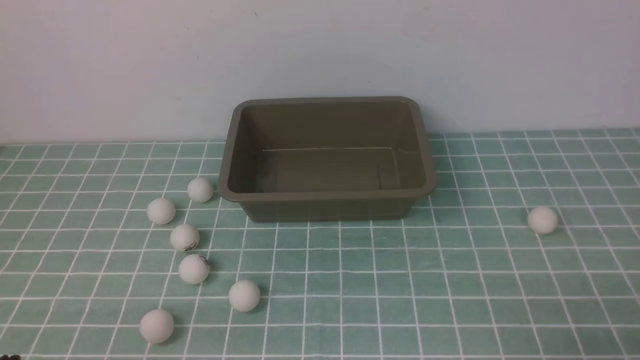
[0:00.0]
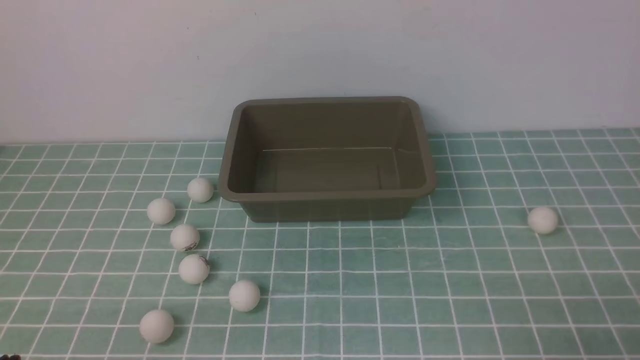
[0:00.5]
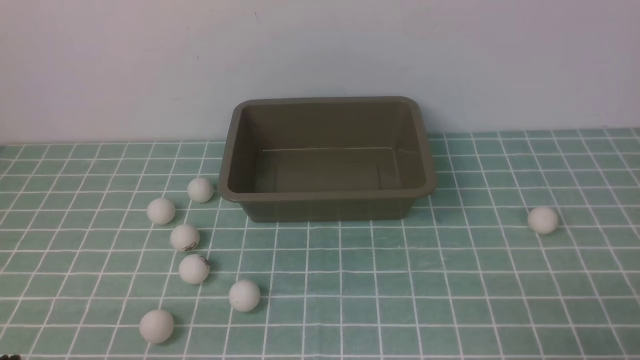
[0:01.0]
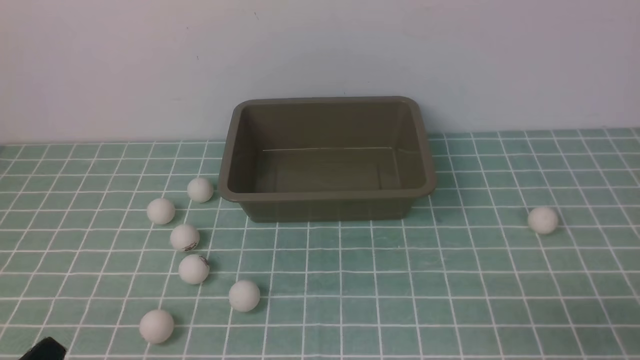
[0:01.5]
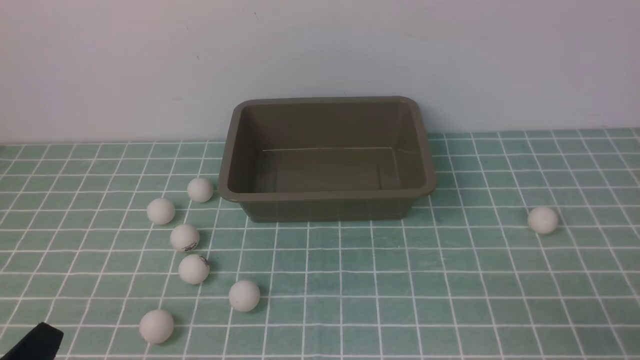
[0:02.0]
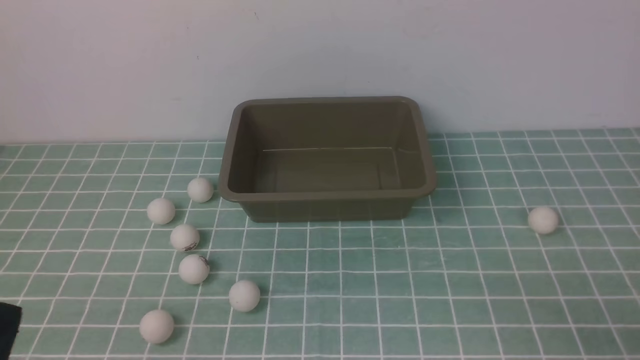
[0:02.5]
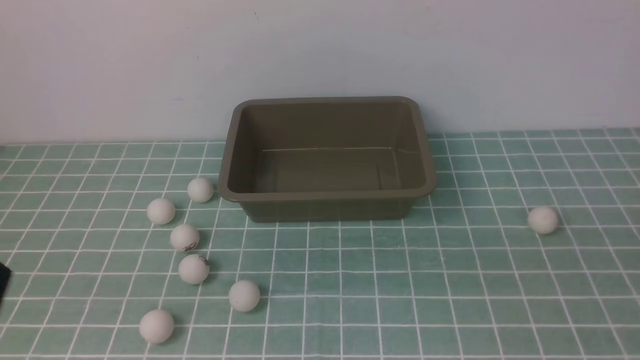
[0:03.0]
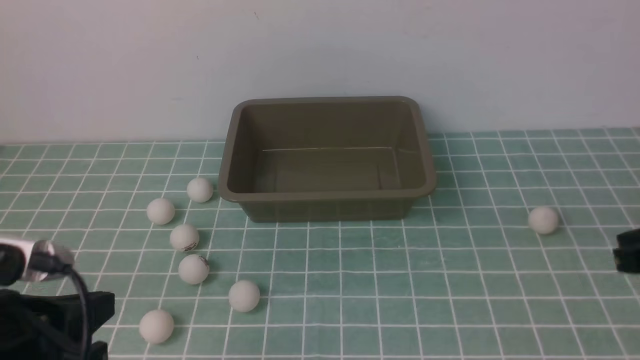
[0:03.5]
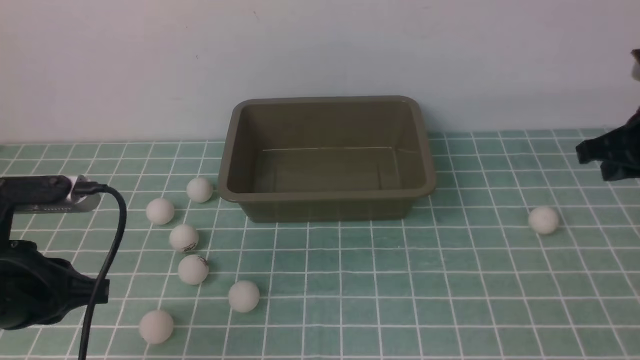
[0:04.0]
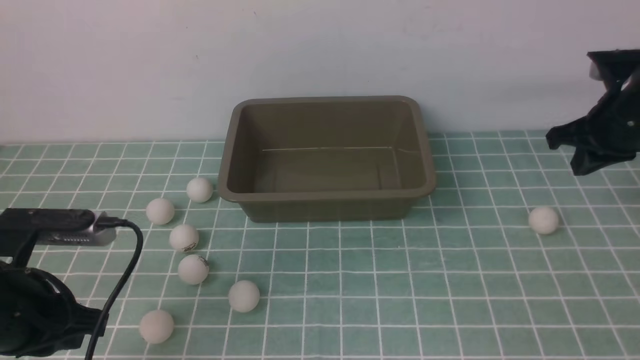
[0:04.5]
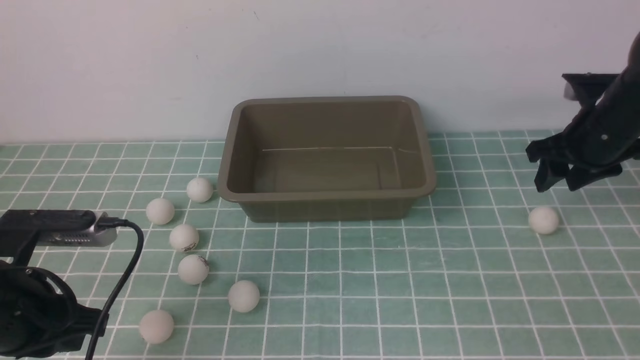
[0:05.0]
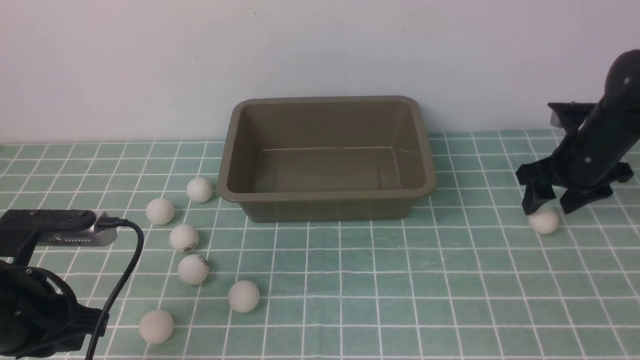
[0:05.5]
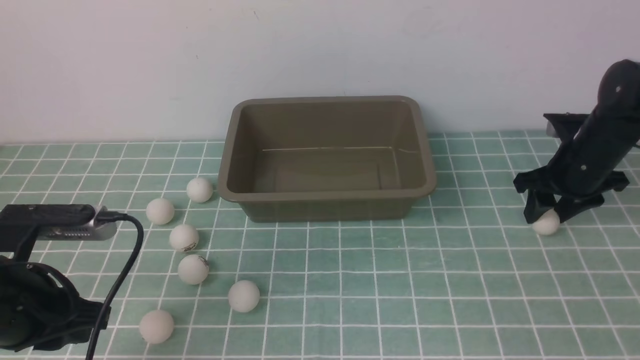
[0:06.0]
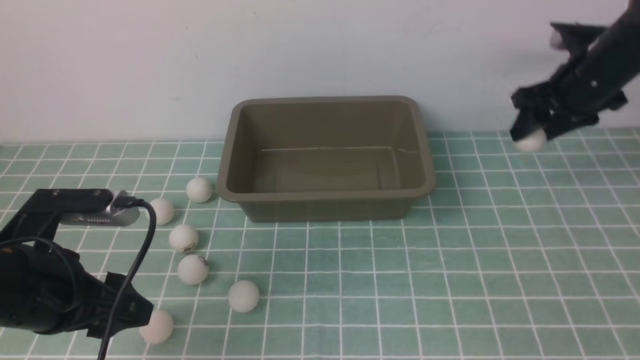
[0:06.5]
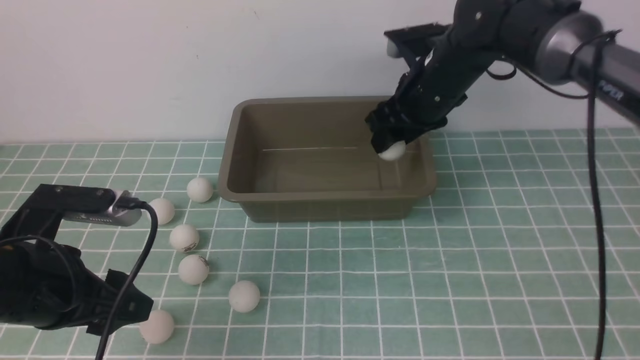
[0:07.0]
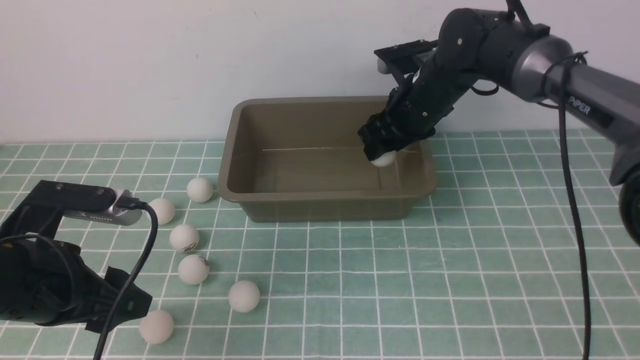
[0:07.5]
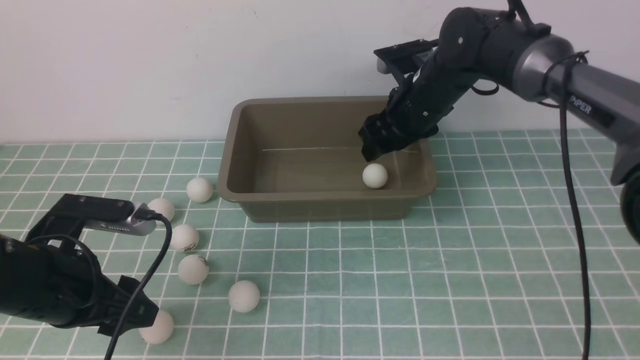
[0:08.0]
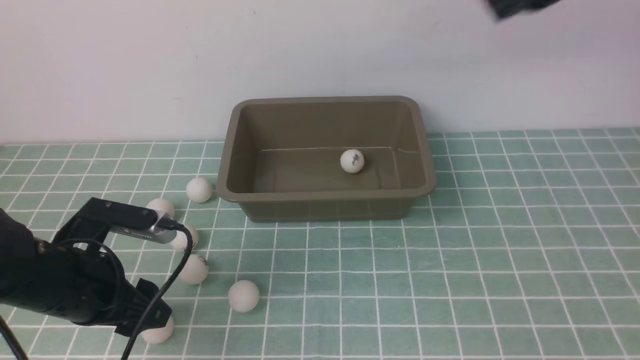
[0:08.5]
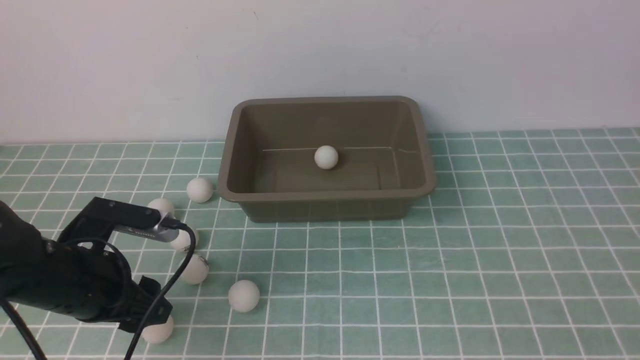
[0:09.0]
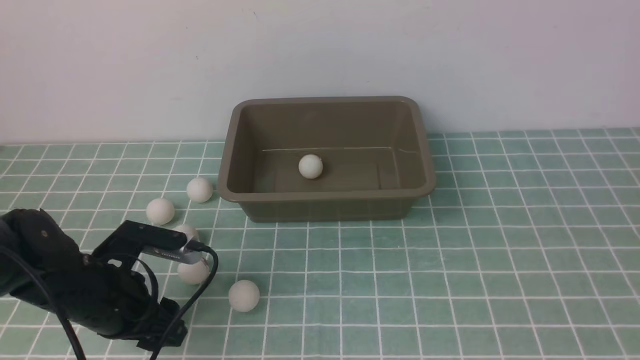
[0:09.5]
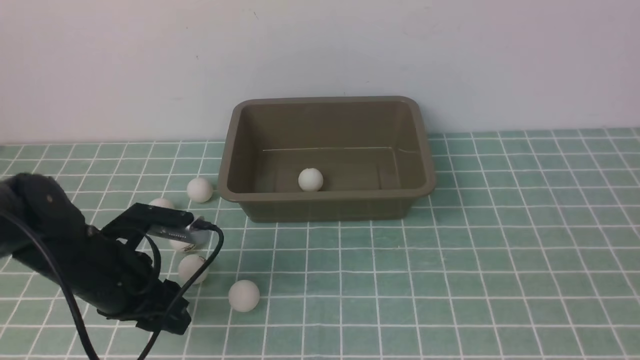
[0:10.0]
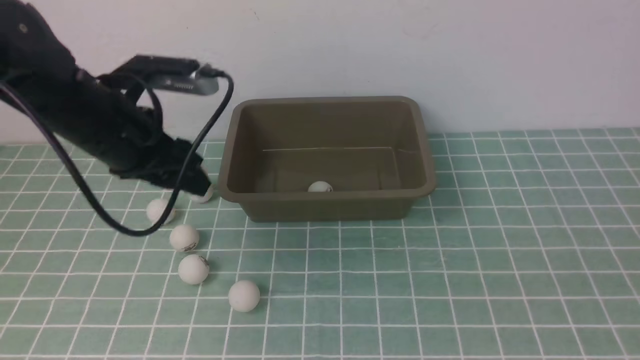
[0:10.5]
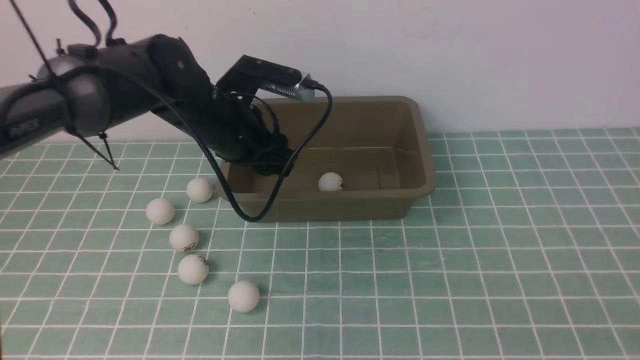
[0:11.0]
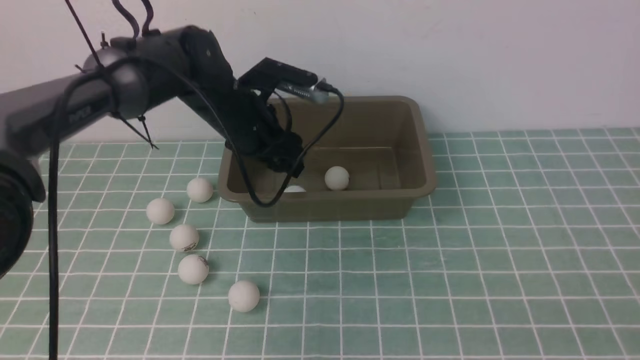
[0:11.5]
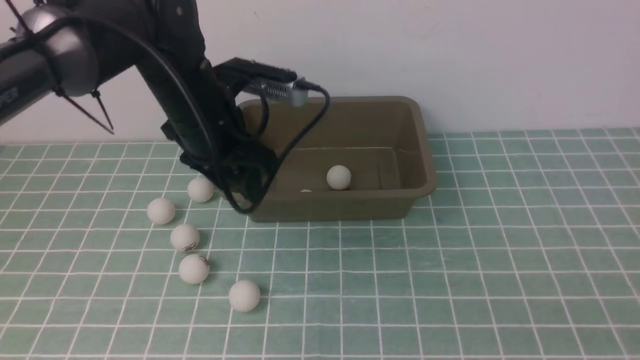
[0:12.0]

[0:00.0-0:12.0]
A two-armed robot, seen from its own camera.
Step, 0:00.0 to 0:06.0: use the right arm to clamp the table tennis ball closest to it.
Step, 0:06.5 to 0:08.0: use the right arm to put the table tennis ball into the box.
Step, 0:08.5 to 0:10.0: use the left arm to clamp the table tennis ball closest to it.
Step, 0:10.5 to 0:11.5: use the left arm to put the table tennis ball into the box.
0:02.0 to 0:04.0: The left gripper goes approximately 15 cm forward and upward. The right gripper shifts roughly 30 cm forward.
0:04.0 to 0:06.0: The right gripper moves downward and forward, roughly 15 cm, and opens. Meanwhile the left gripper opens up.
0:06.0 to 0:08.0: The left gripper ends up about 5 cm from where it was, and opens, while the right gripper moves up and down over some 25 cm, changing direction 2 times, and closes.
0:08.0 to 0:10.0: The right gripper heads backward, covering roughly 40 cm, while the left gripper is displaced forward, to the right and upward by roughly 20 cm.
0:10.0 to 0:12.0: The left gripper moves downward and backward, some 10 cm.

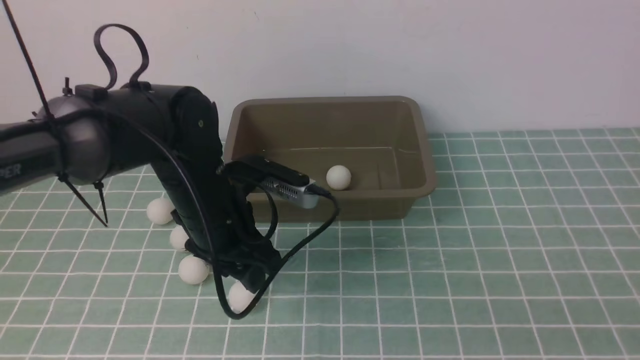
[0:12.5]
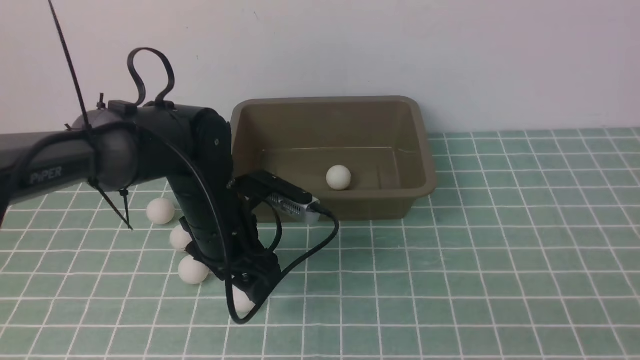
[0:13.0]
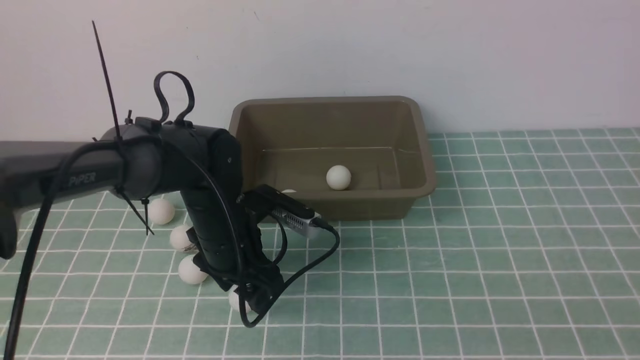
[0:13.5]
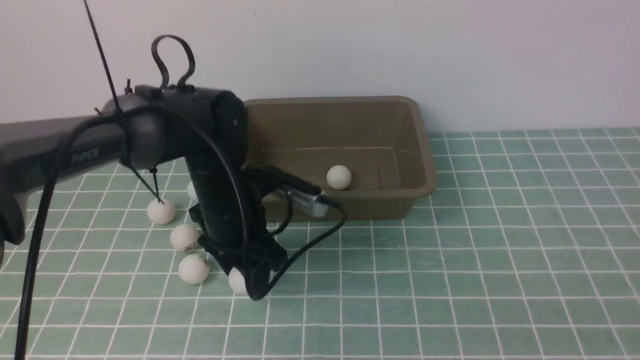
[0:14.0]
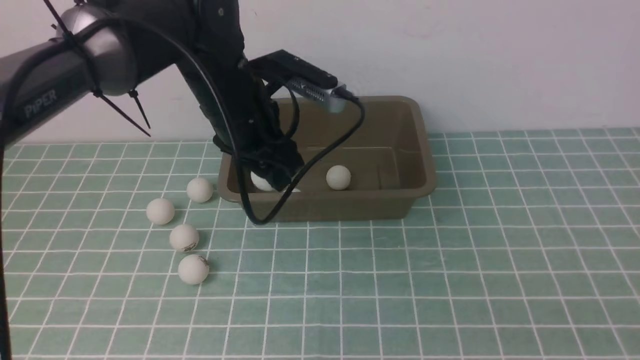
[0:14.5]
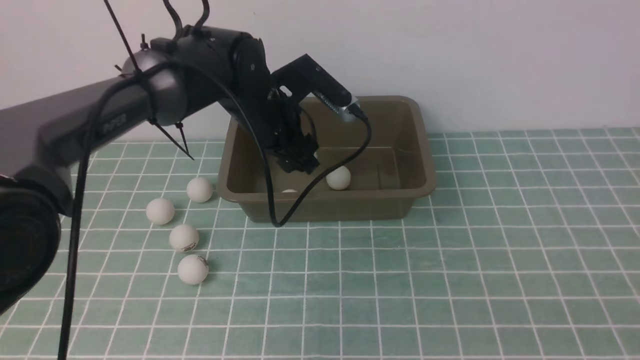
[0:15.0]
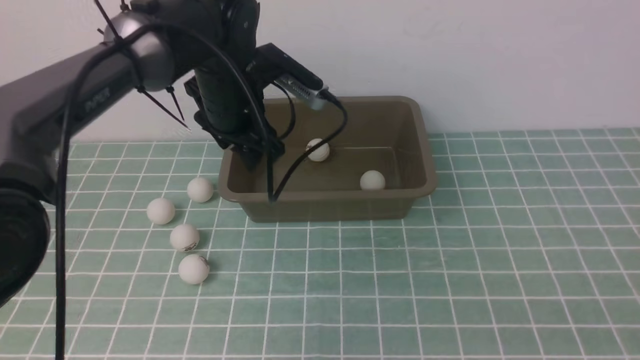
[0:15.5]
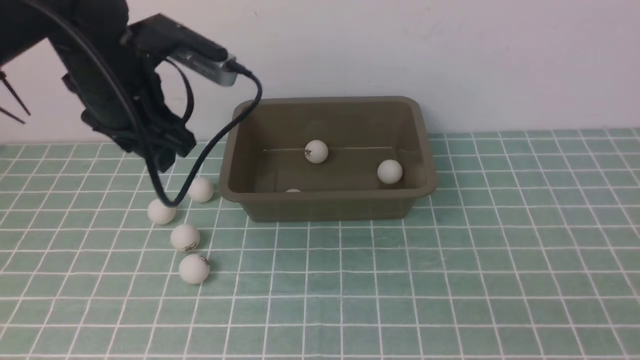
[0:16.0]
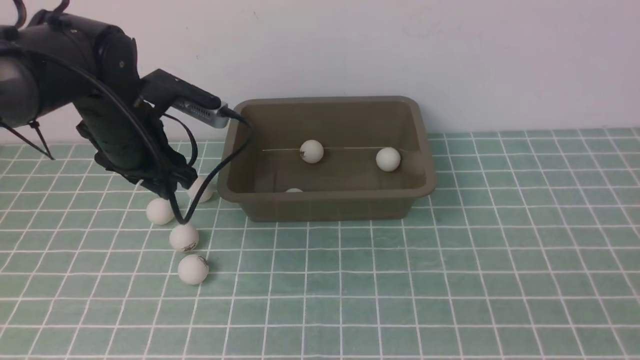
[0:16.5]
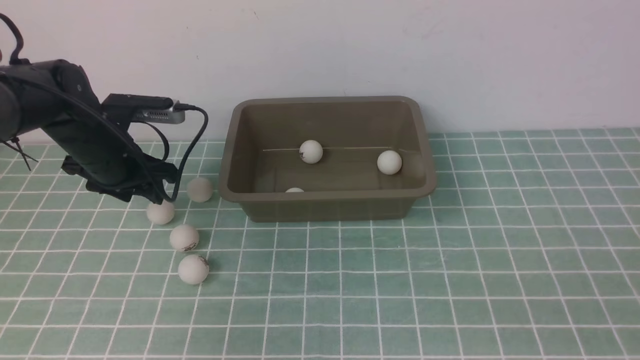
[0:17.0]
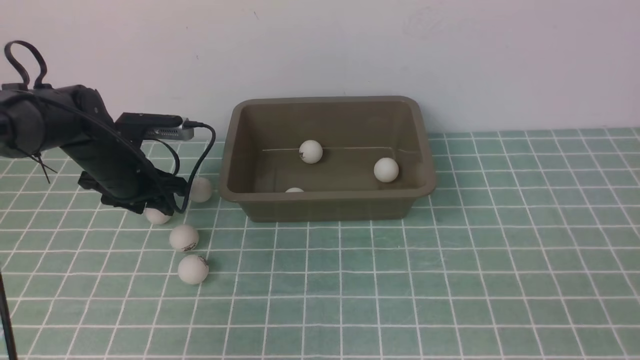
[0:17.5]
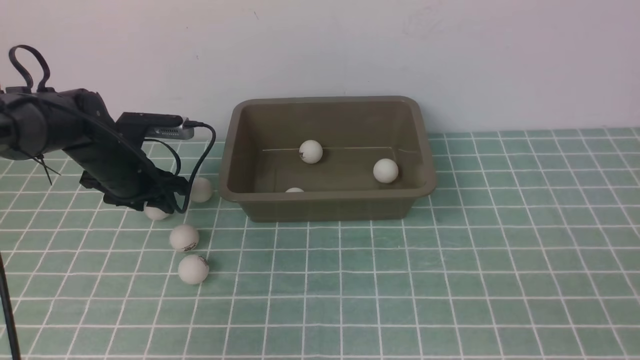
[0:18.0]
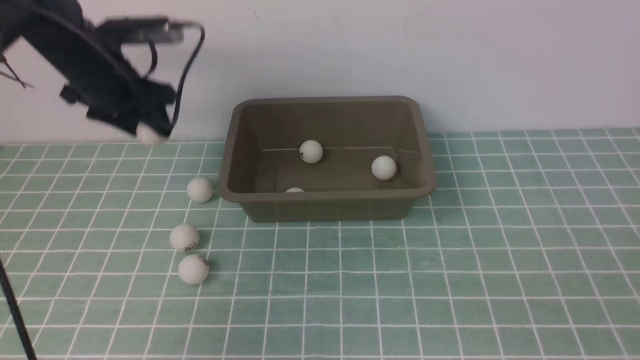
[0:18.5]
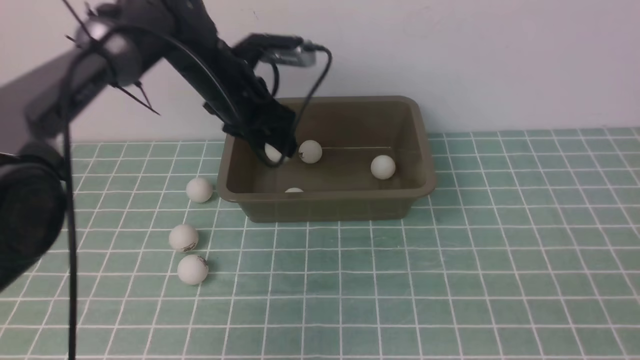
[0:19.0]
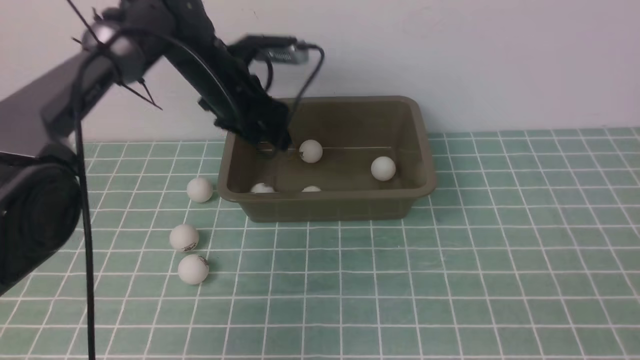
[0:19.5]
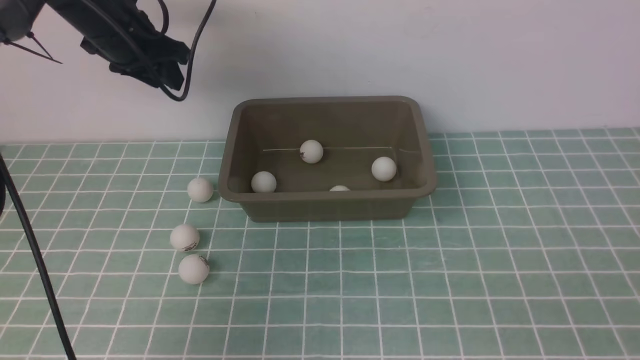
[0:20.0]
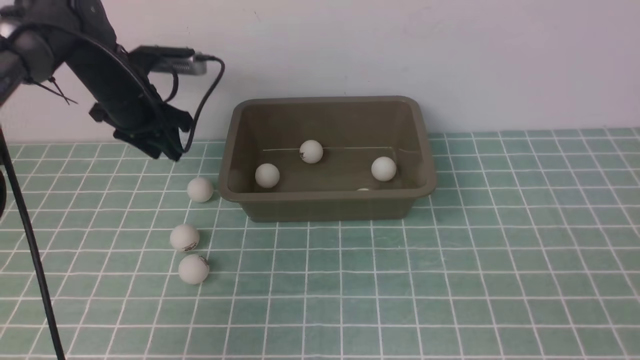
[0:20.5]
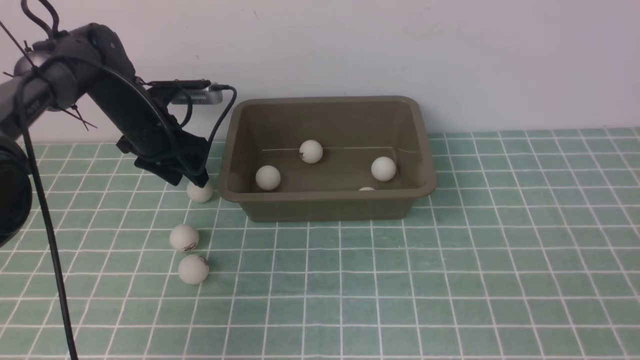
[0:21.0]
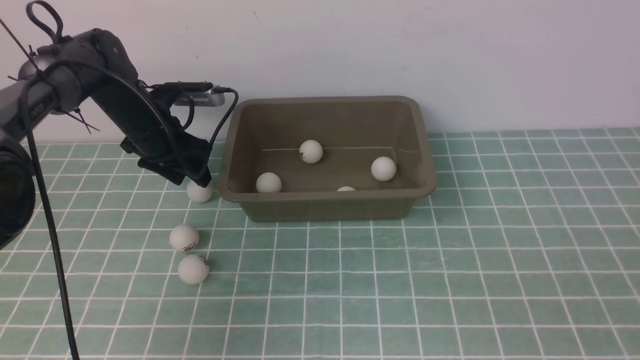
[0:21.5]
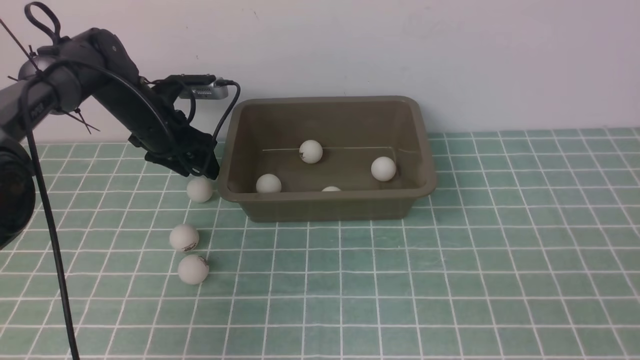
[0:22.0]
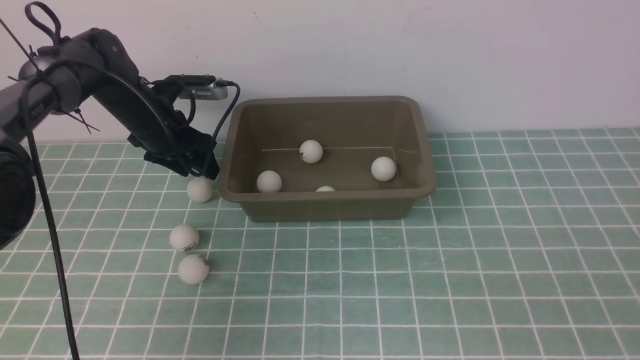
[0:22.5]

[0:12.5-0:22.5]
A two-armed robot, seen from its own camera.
Step, 0:12.5 to 0:14.0: use the left arm to clamp the table tennis ball closest to it.
Step, 0:14.5 to 0:15.0: use the left arm to put the table tennis ball into the box.
Step, 0:15.5 to 0:18.0: use the left arm to clamp the table tennis ball closest to it.
Step, 0:18.5 to 0:19.5: use the left arm to put the table tennis ball into the box.
0:12.5 to 0:14.5: The left gripper shifts approximately 10 cm forward and upward.
0:14.5 to 0:16.5: The left gripper moves to the left, approximately 15 cm.
0:16.5 to 0:18.5: The left gripper shifts roughly 5 cm forward, and travels downward and back again, some 10 cm each way.
0:18.5 to 0:20.5: The left gripper travels to the right and back again, roughly 10 cm each way.
0:20.5 to 0:22.5: The left gripper heads downward, covering roughly 5 cm.
